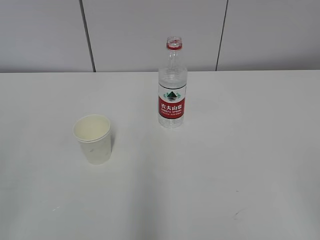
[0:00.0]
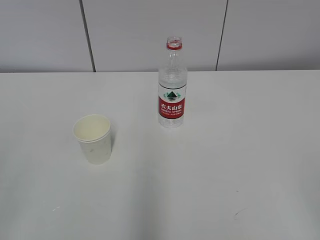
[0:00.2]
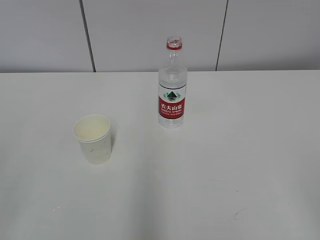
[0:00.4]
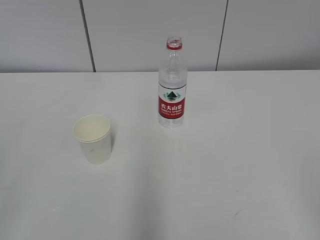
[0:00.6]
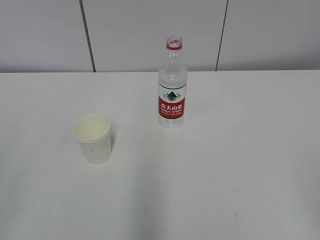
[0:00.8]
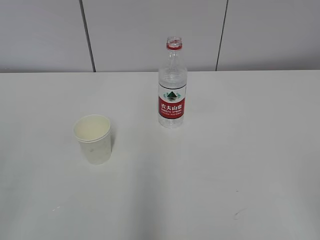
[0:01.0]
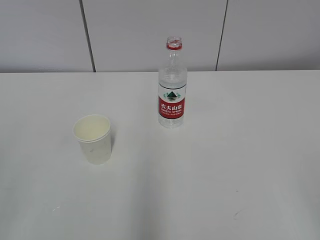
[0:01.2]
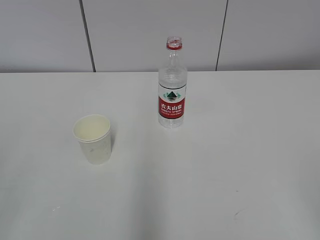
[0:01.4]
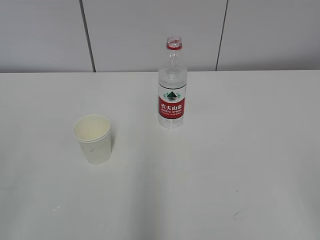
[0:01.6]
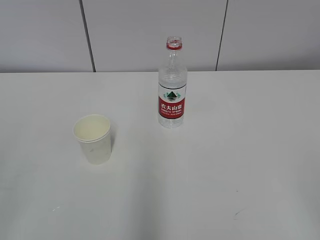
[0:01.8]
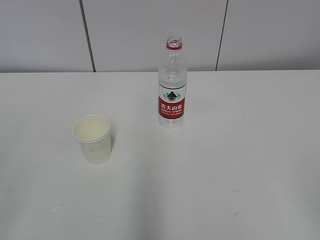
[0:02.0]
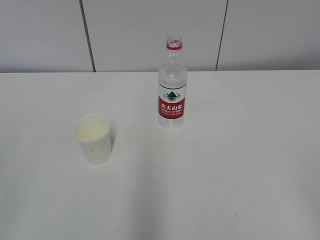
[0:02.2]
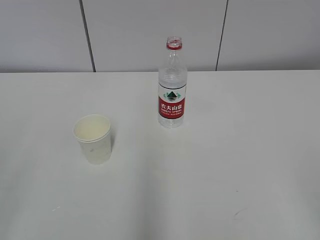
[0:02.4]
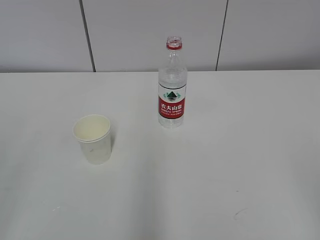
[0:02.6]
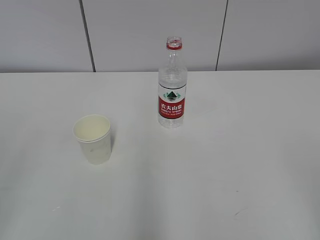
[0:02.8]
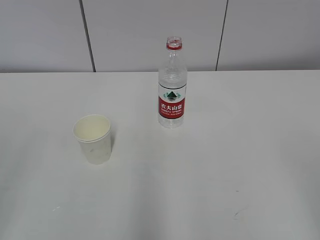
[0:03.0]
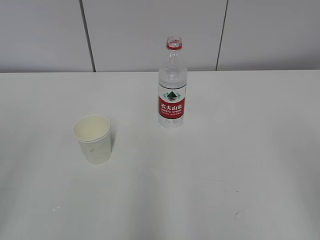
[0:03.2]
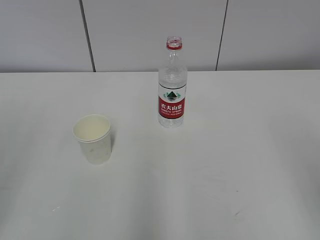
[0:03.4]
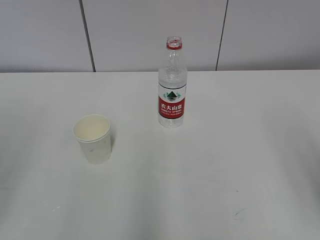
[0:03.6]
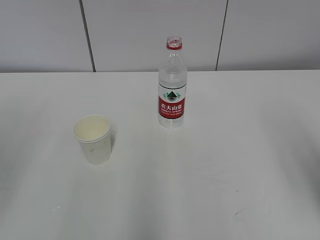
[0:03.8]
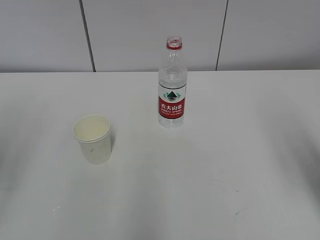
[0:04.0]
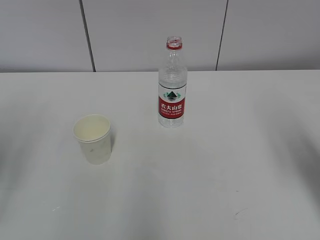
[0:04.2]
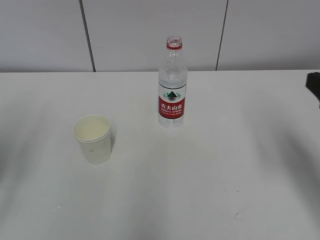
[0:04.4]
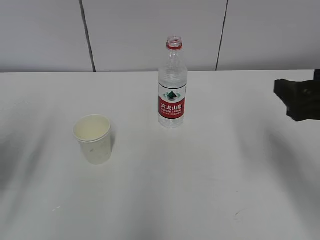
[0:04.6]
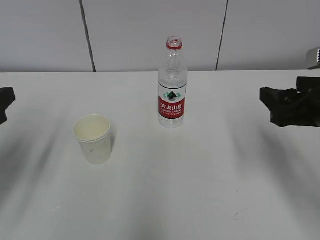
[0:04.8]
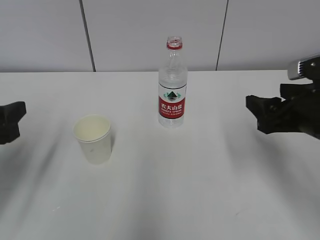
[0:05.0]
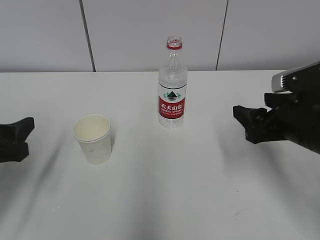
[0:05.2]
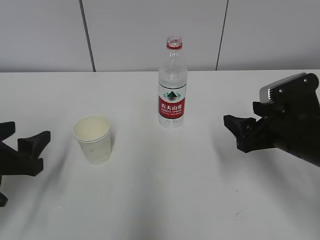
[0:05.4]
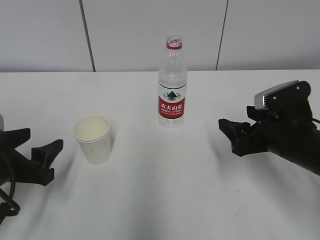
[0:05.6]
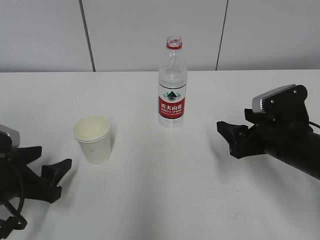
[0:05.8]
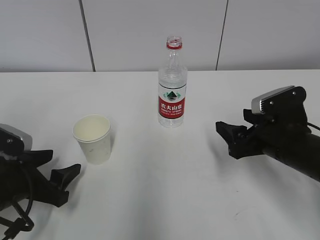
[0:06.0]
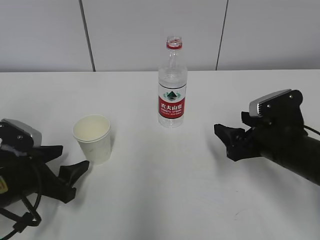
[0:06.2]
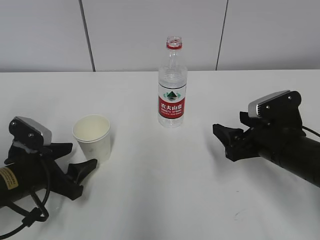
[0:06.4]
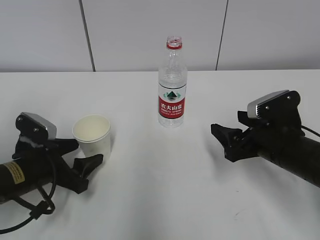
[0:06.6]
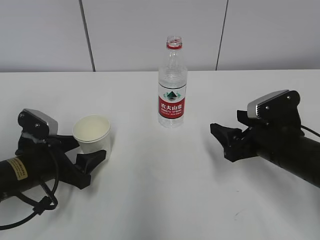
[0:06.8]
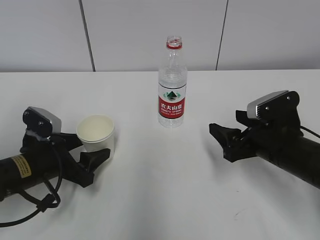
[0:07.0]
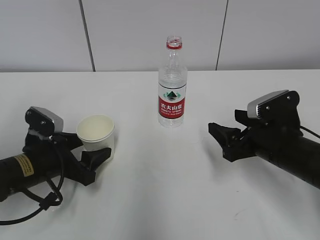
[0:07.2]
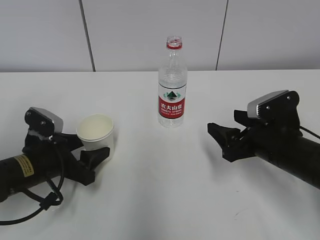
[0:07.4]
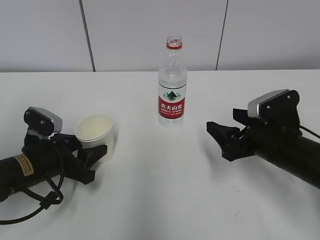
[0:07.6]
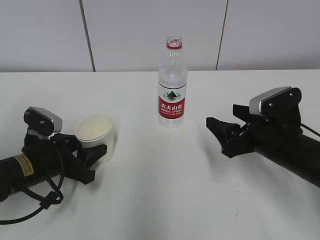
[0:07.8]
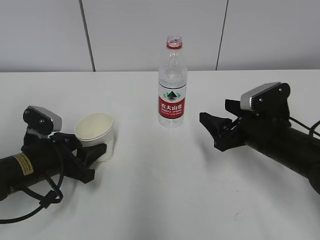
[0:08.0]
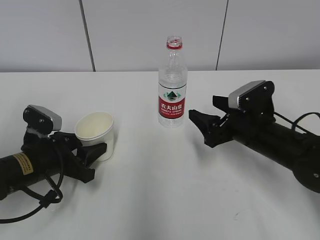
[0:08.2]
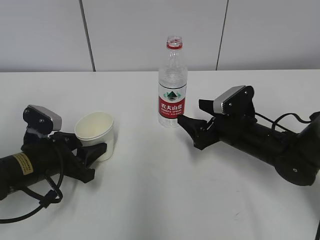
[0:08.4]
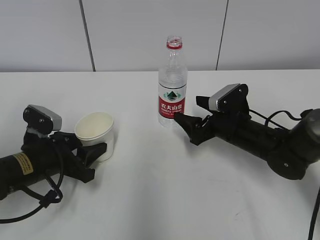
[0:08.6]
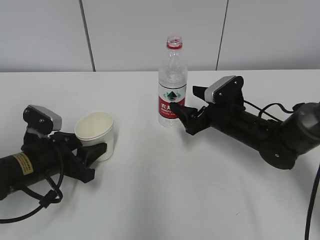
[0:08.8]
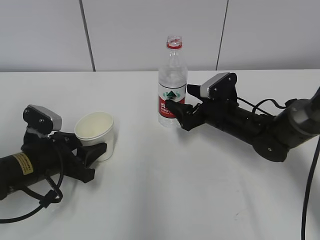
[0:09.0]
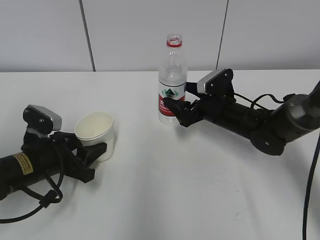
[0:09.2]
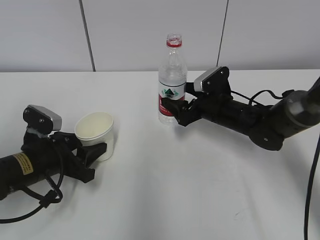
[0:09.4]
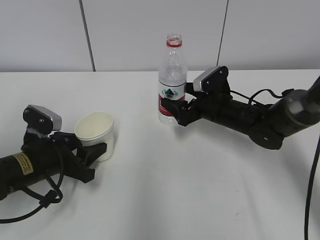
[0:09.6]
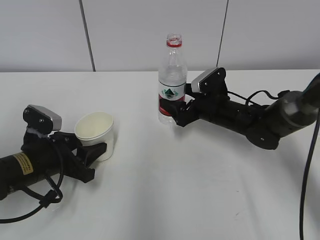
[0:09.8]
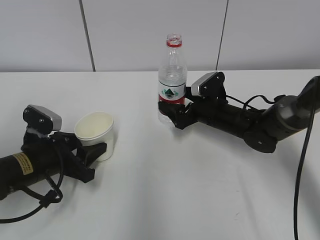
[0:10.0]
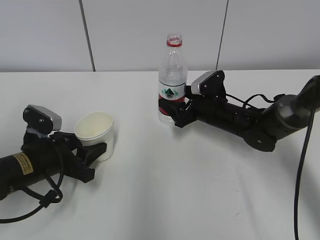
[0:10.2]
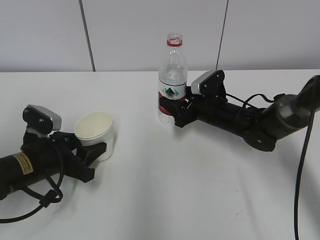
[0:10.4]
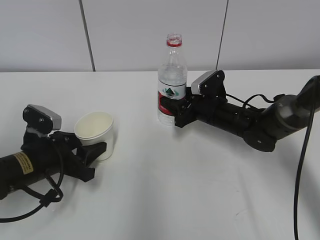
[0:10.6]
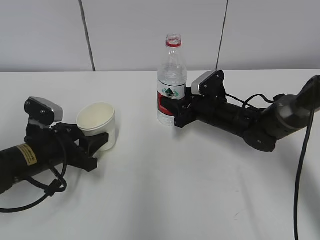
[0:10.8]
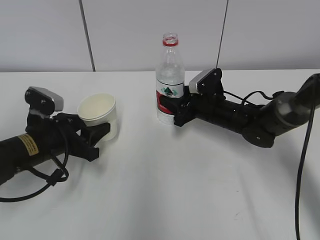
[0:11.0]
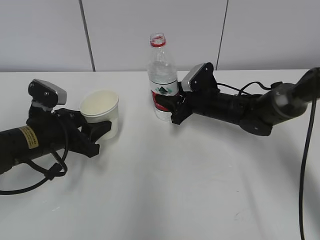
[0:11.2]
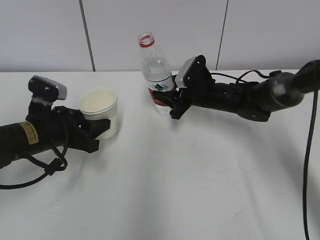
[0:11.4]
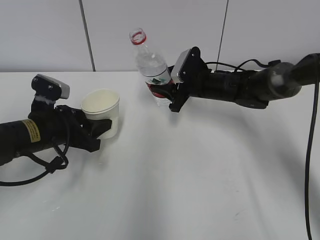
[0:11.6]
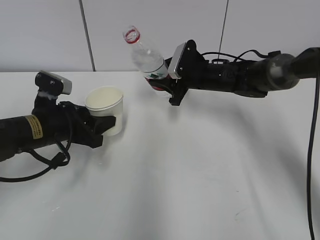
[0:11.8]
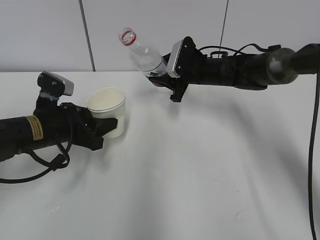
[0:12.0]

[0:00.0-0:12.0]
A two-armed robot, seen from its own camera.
Step, 0:00.0 to 0:06.4: Grab the paper cup with the left hand.
Step, 0:06.6 to 0:09.0: Grab the water bottle with the right hand.
Step, 0:09.2 to 0:11.8: Lift the paper cup with the left hand.
0:03.0 to 0:04.4: The right gripper shifts some 20 cm forward.
0:04.4 to 0:06.0: The left gripper is displaced downward and to the right by some 20 cm, while the right gripper goes roughly 15 cm downward, forward and to the left.
0:06.0 to 0:07.6: The left gripper goes about 5 cm forward, and closes.
0:07.6 to 0:09.0: The right gripper moves forward, some 10 cm.
0:09.0 to 0:10.4: The right gripper closes up.
0:10.4 to 0:12.0: The right gripper heads upward and forward, covering approximately 10 cm, and closes. Meanwhile the left gripper shifts by roughly 5 cm.

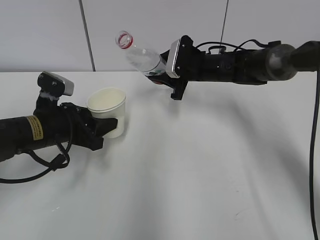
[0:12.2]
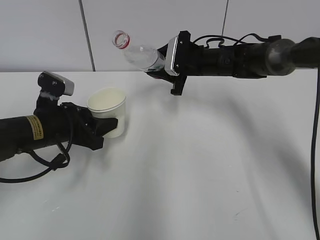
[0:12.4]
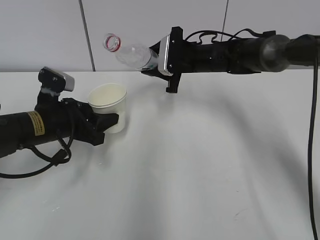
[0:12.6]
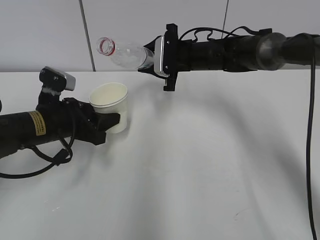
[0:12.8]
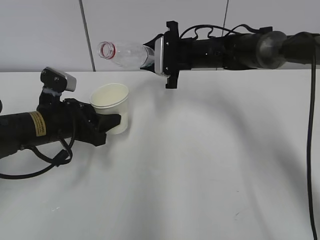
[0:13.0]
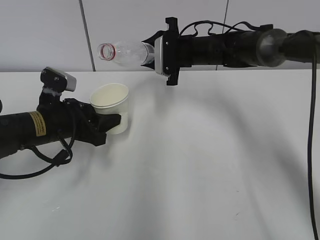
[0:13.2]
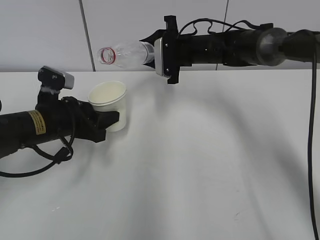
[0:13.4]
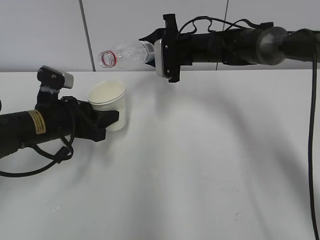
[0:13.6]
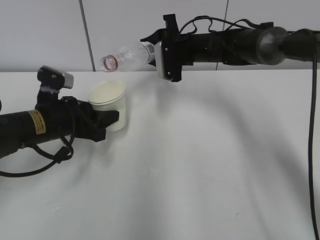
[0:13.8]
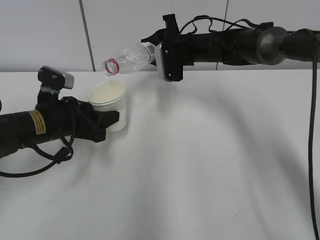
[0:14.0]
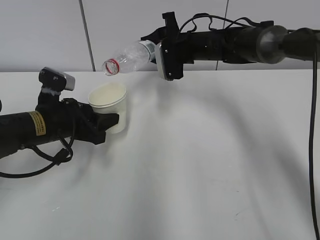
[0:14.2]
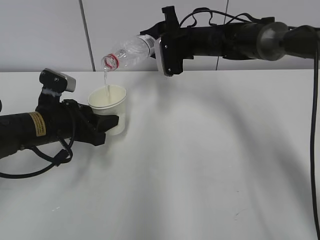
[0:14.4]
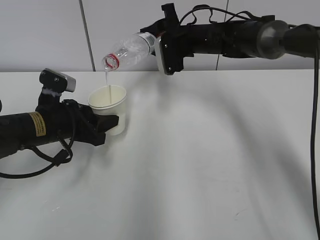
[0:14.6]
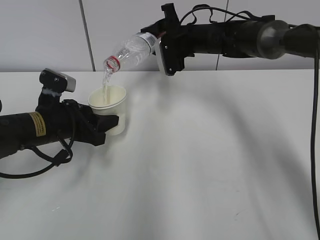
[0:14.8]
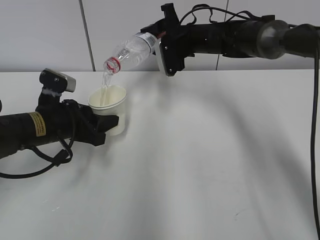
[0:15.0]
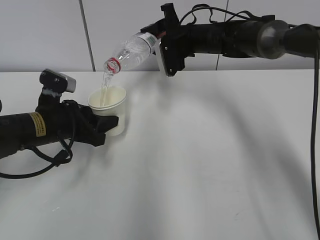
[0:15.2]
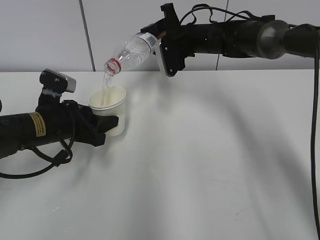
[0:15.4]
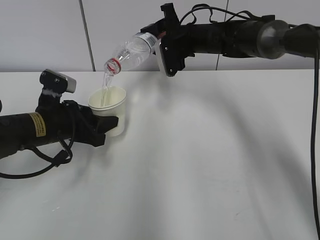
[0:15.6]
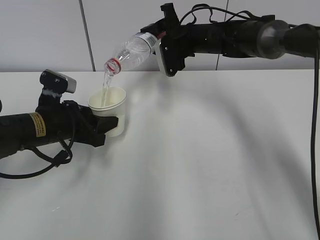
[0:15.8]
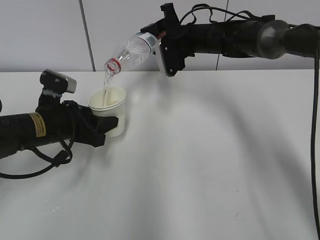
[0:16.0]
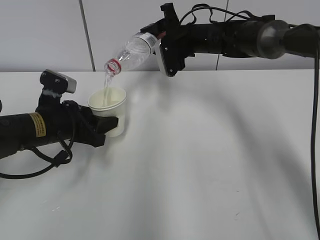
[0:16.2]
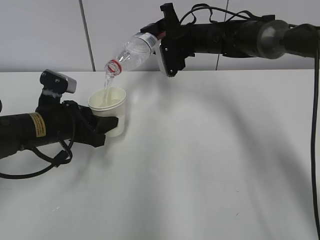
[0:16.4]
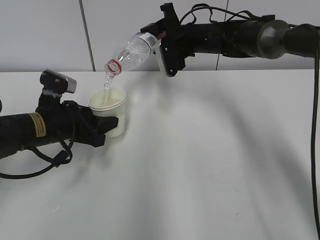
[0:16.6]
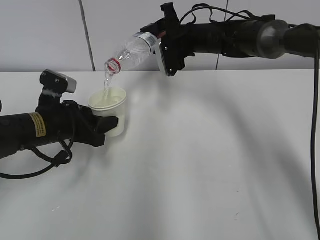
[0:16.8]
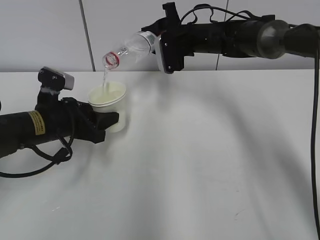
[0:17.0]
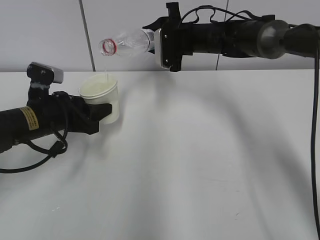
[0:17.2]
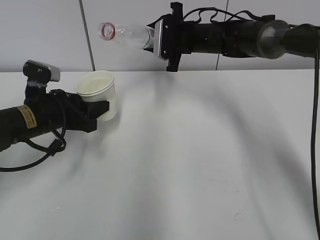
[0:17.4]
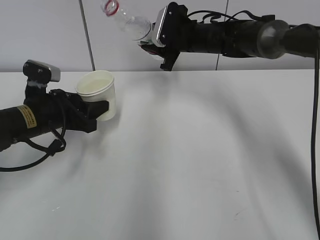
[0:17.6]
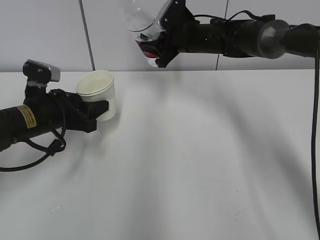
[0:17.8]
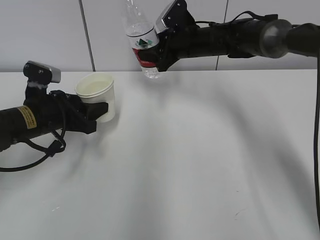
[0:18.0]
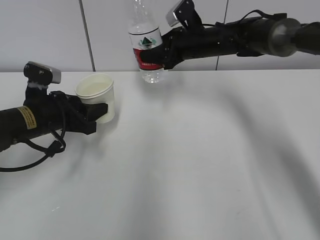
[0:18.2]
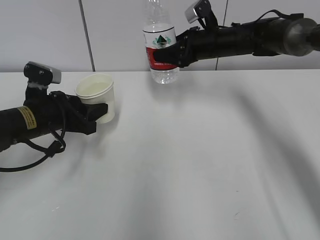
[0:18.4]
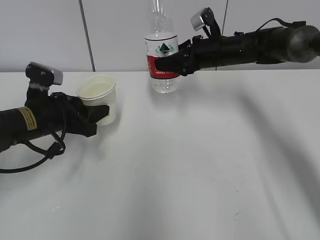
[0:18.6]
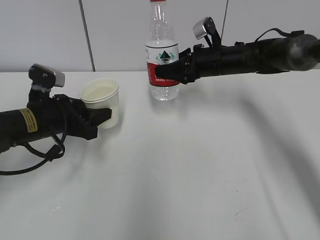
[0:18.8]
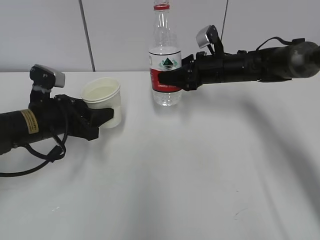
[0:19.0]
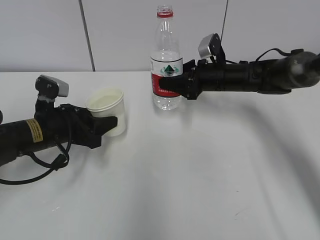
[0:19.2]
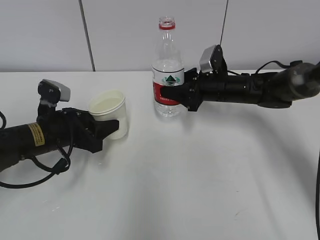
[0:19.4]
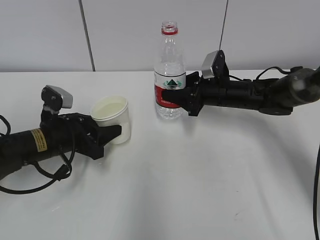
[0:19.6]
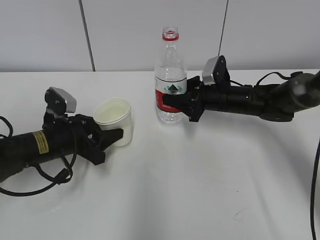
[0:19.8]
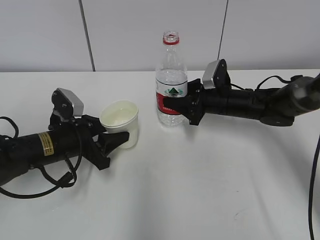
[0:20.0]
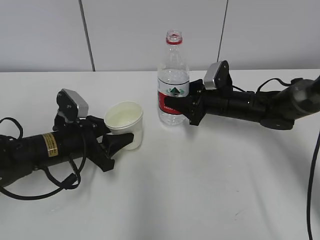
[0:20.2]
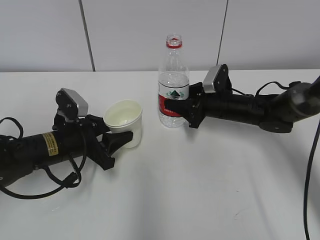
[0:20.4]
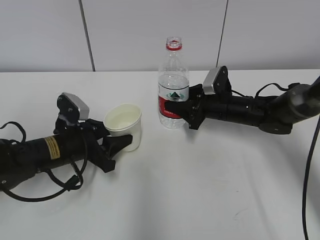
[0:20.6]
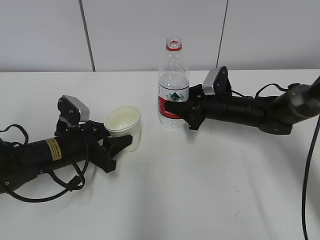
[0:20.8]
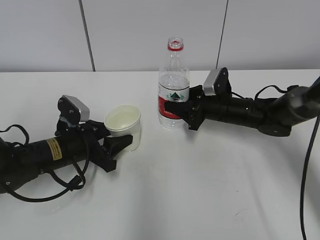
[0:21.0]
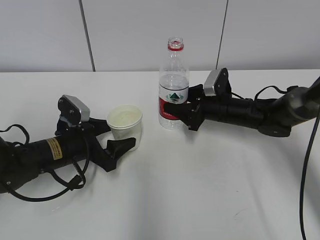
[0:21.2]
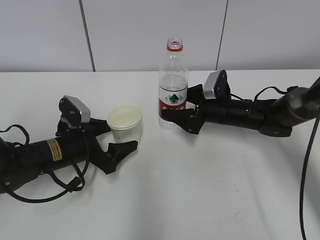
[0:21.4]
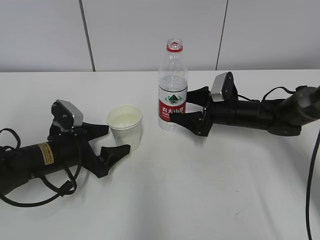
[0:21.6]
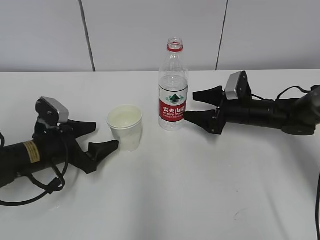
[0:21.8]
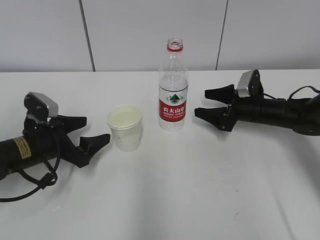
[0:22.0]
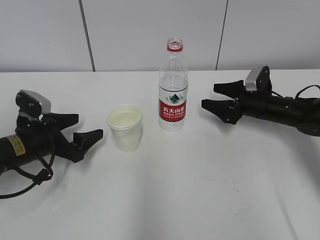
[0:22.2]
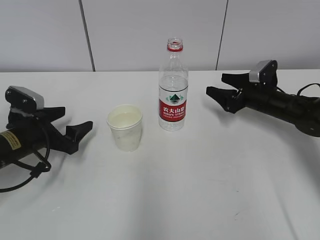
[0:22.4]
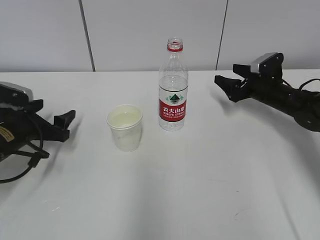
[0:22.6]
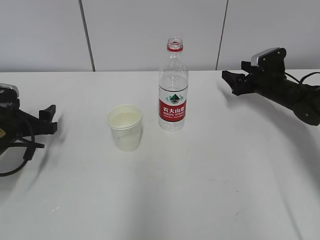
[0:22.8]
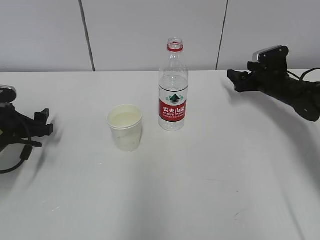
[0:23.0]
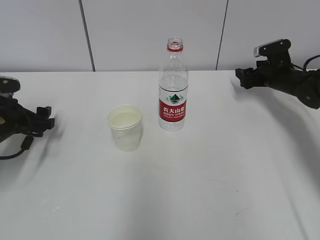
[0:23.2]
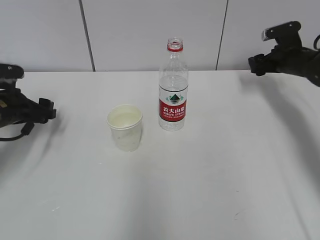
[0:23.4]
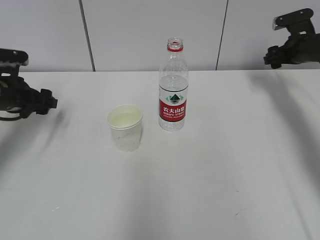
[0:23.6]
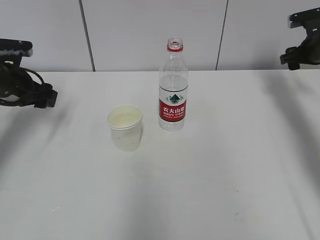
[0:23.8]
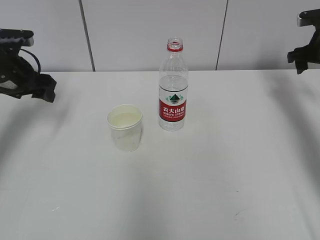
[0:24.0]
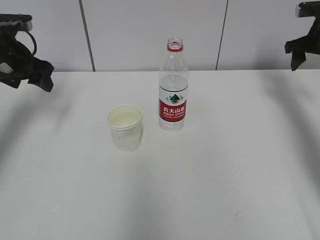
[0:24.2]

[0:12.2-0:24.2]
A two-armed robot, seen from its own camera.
Step, 0:12.2 to 0:14.2: Fill water with the left hand.
Step, 0:12.2 to 0:14.2: Pour water with the right hand.
Step, 0:14.4 to 0:15.0: Collect water with the right hand.
Step, 0:15.2 to 0:17.6: Place the paper cup with the left hand.
Step, 0:17.8 to 0:18.0: Place the water bottle with the right hand.
0:13.8 to 0:15.2: The grippers make only small movements.
0:15.2 to 0:16.6: The two grippers keep their place.
0:18.2 to 0:19.8: The left gripper ends up about 5 cm from where it was. The right gripper goes some 10 cm downward and backward.
0:19.8 to 0:21.2: The left gripper opens.
0:21.2 to 0:22.6: The left gripper goes roughly 10 cm to the left. Meanwhile the right gripper travels to the right by roughly 10 cm, and opens its fingers.
0:22.6 to 0:24.2: The left gripper moves upward and forward, about 15 cm; the right gripper goes roughly 15 cm upward and to the right.
